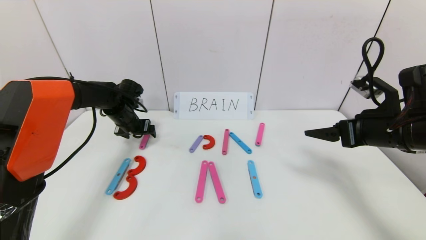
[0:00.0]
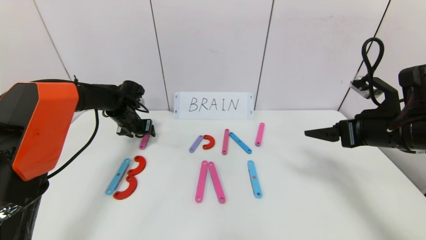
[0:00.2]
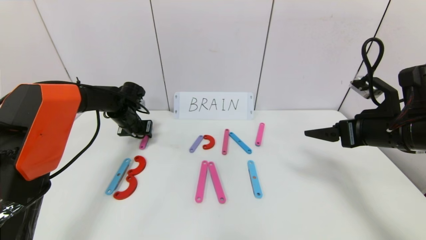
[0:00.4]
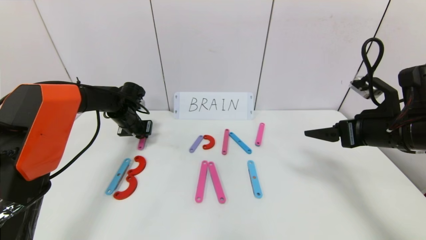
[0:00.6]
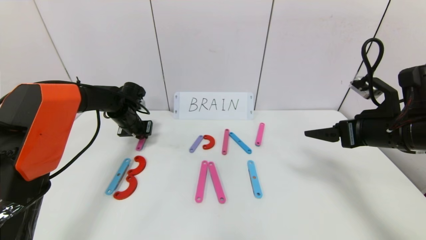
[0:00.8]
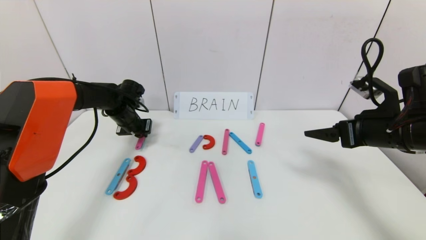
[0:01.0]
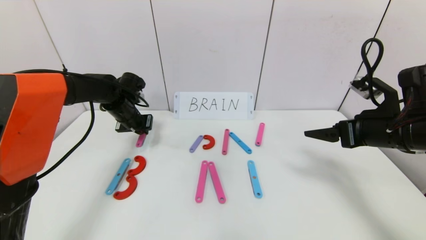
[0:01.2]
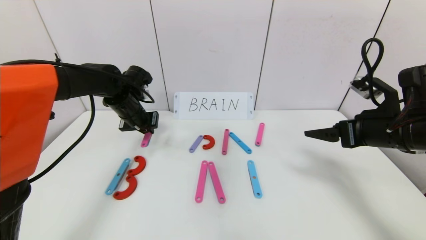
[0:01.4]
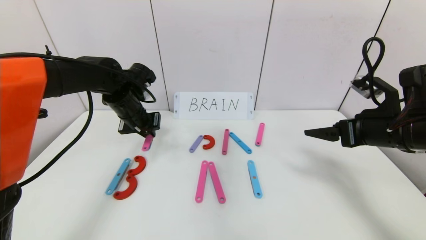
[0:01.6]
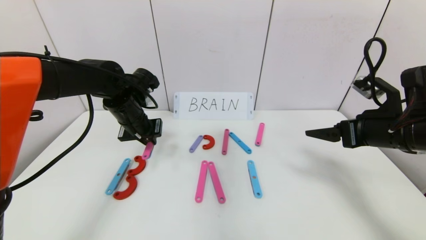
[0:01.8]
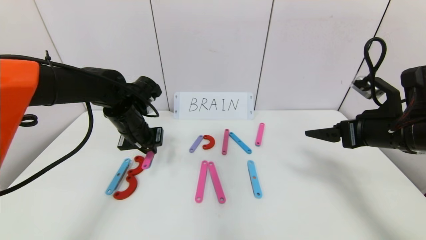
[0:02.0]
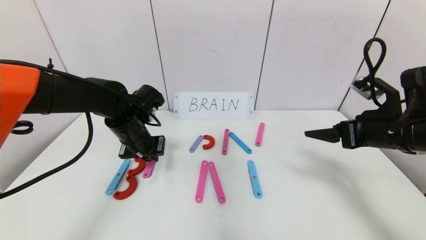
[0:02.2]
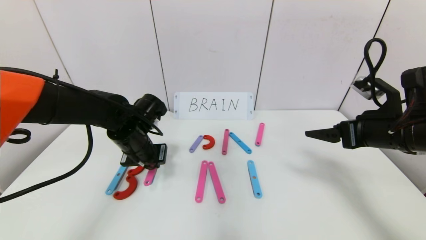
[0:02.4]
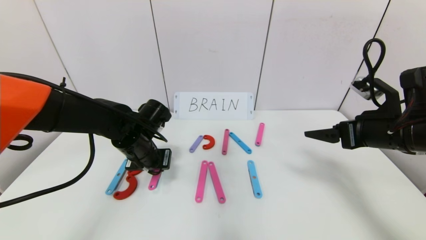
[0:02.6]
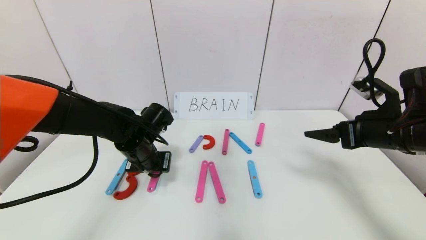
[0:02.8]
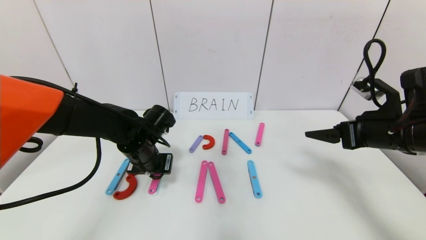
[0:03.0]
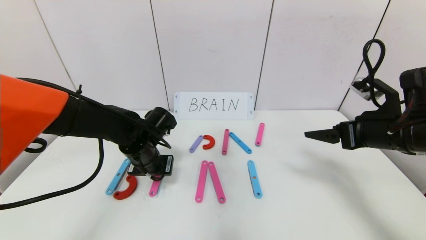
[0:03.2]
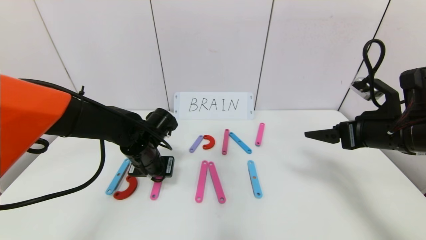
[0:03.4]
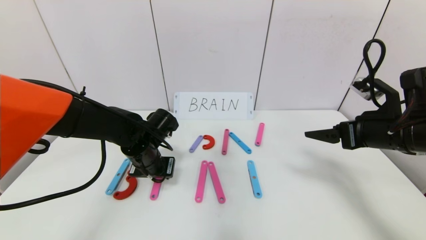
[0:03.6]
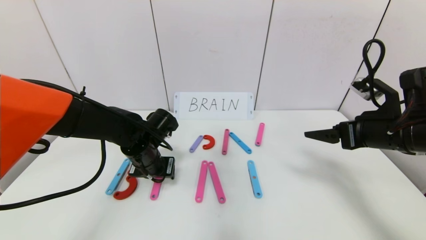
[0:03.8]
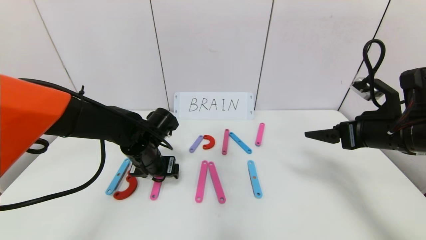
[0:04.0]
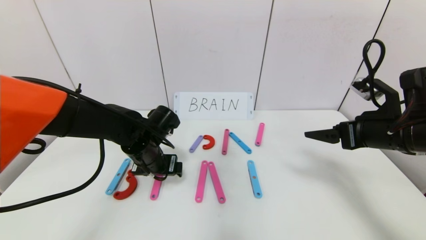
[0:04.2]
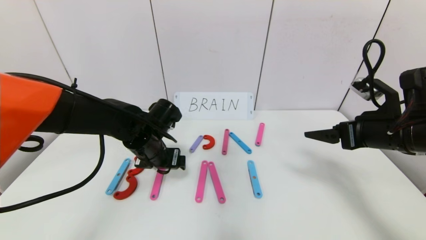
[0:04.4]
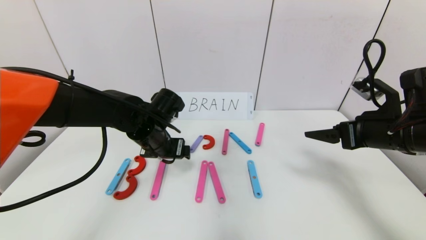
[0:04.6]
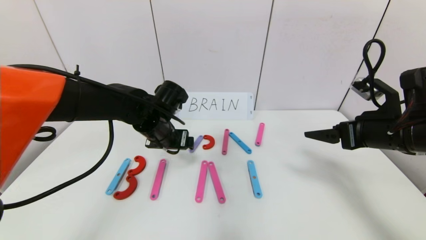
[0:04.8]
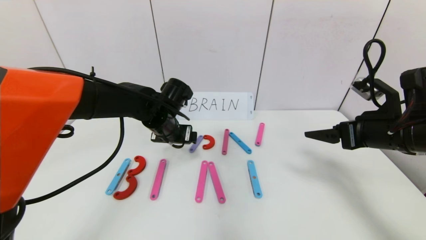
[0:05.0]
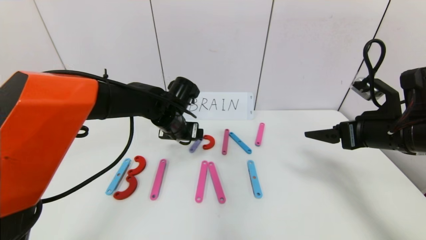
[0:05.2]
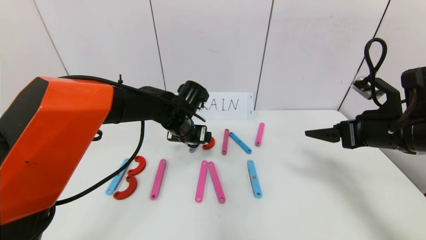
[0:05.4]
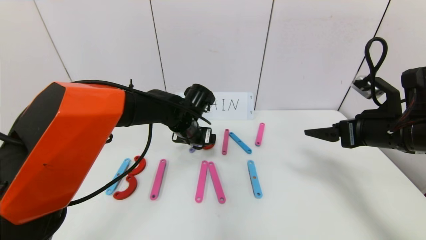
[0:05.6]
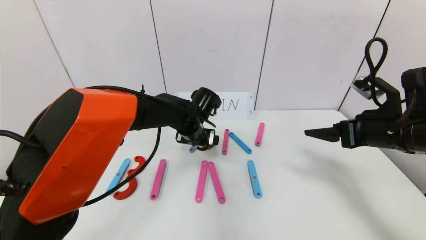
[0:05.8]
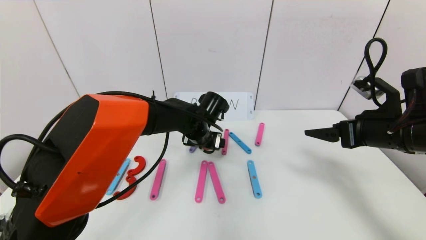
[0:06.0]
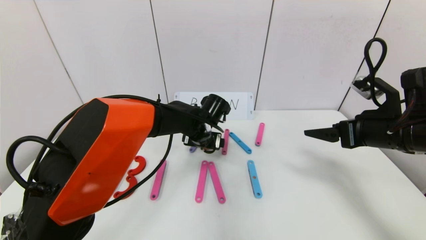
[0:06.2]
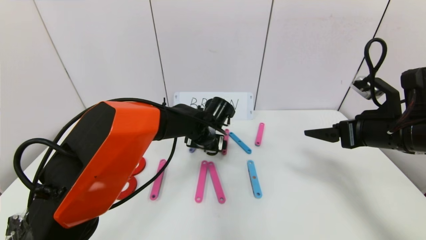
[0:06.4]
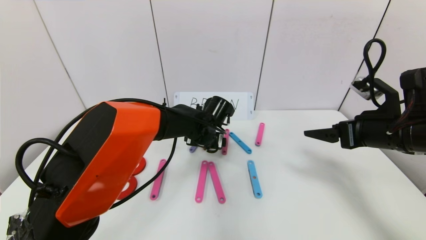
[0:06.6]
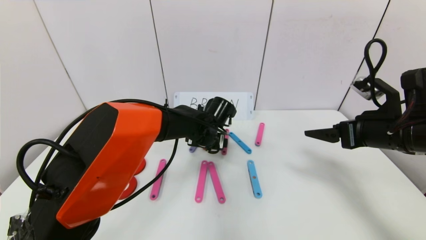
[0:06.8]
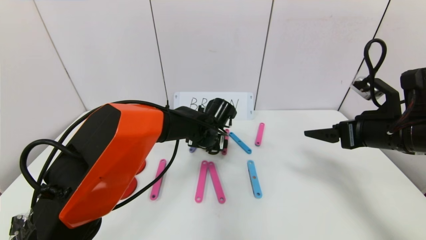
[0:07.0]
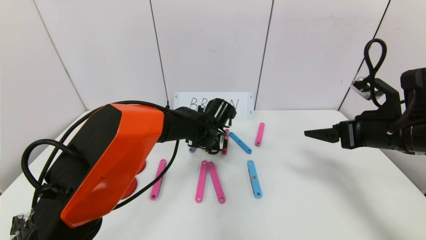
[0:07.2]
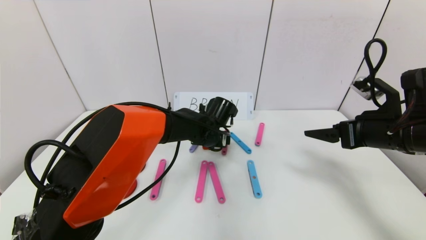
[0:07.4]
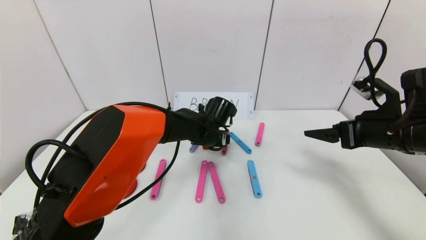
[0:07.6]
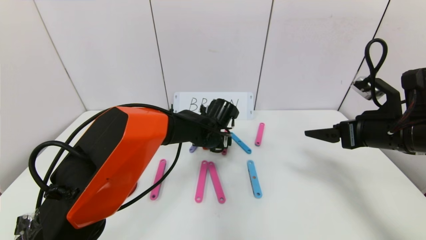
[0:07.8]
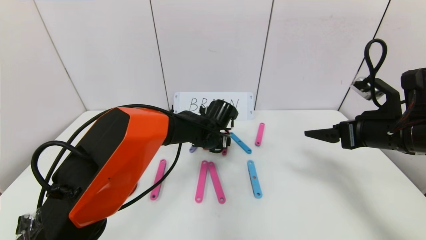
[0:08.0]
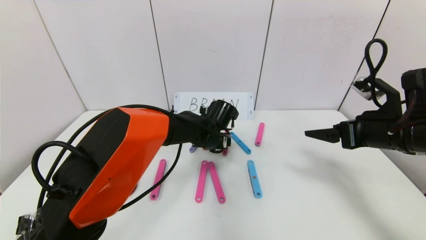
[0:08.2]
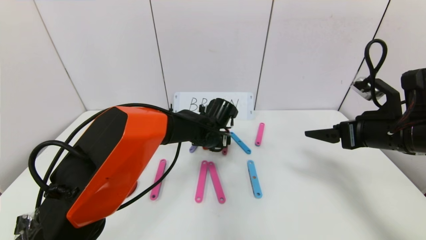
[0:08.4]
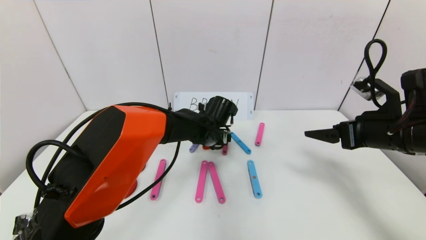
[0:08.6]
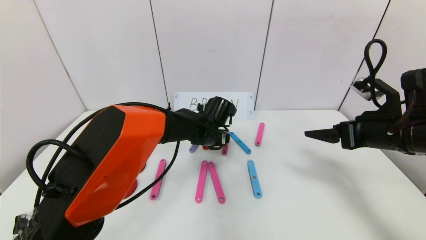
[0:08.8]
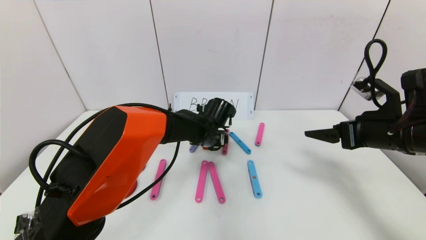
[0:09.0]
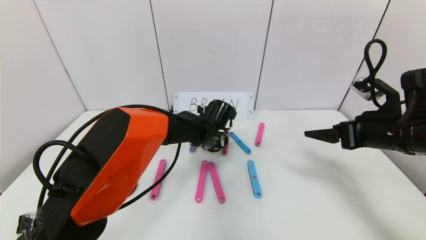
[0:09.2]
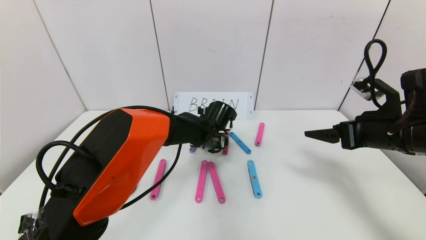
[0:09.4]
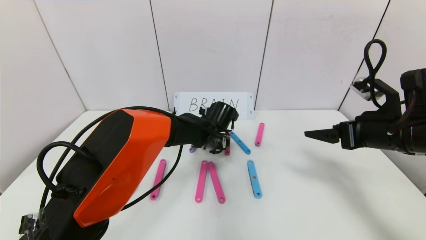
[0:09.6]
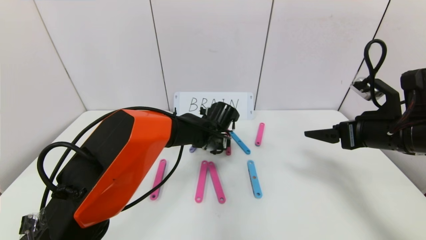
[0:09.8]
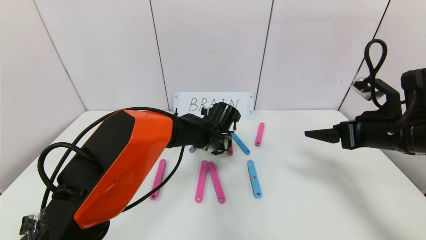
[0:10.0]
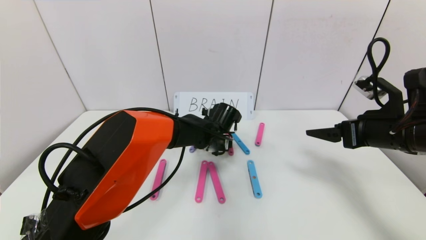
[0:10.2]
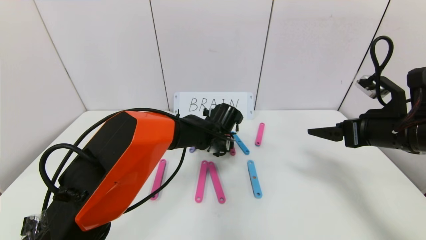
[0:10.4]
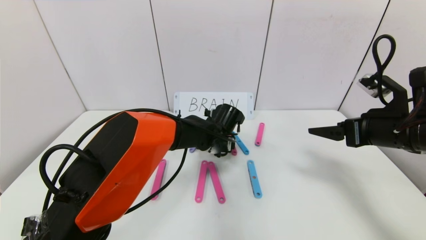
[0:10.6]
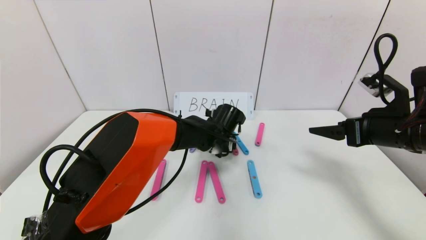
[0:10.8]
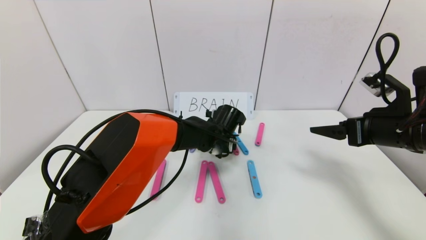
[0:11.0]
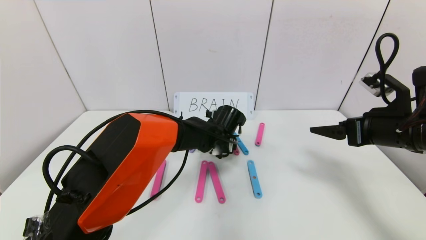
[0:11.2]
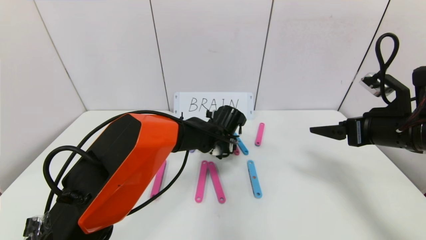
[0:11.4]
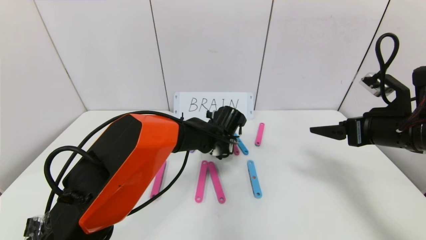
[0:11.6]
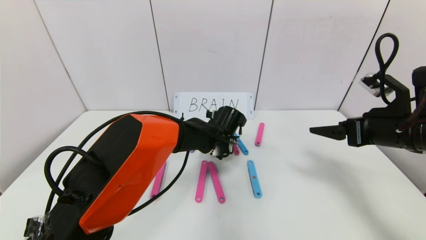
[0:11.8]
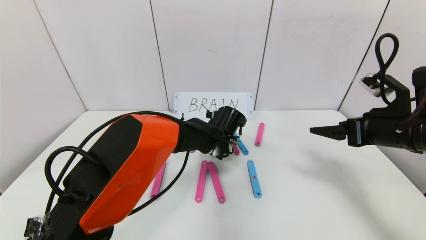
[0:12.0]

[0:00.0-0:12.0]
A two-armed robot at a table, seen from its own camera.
Task of the whole recording: rearrange the word baai as brain.
0.0 to 1.6 s: The left gripper is displaced backward, upward and to the right by some 10 cm, and closes up.
1.6 to 3.0 s: The left gripper heads downward and backward, covering roughly 10 cm.
3.0 to 4.4 s: The left gripper opens.
4.4 to 6.0 s: The left gripper is displaced to the right and forward by approximately 10 cm.
6.0 to 7.6 s: The grippers make only small movements.
7.6 to 9.0 s: Neither gripper changes place.
9.0 to 10.4 s: The grippers make only small movements.
10.4 to 12.0 s: The left gripper closes up.

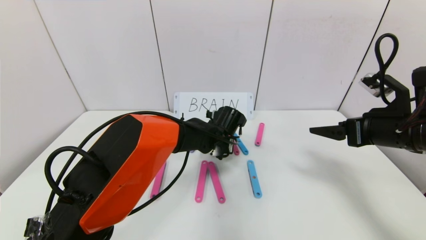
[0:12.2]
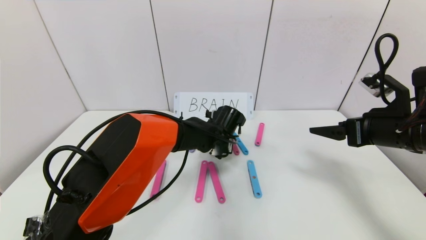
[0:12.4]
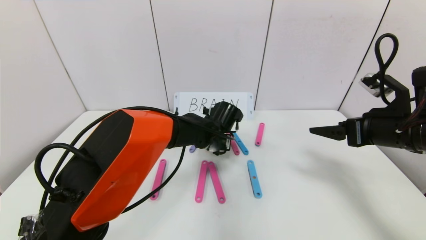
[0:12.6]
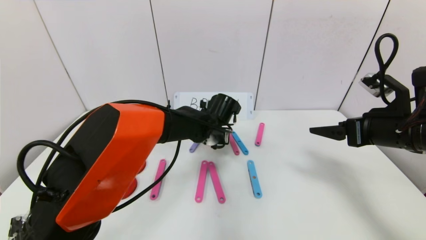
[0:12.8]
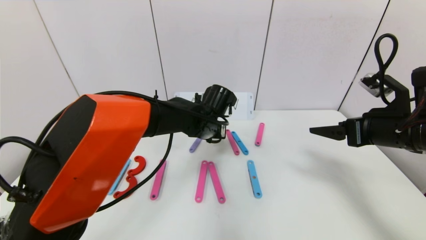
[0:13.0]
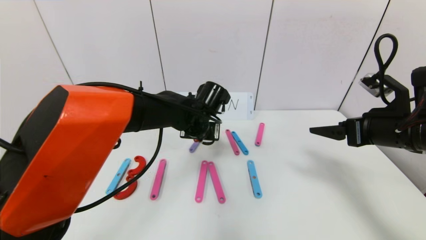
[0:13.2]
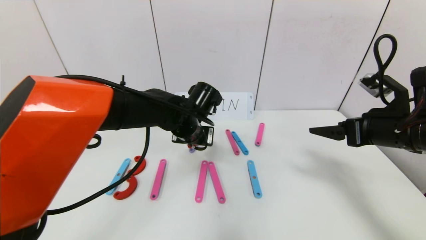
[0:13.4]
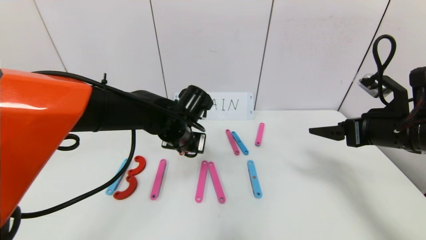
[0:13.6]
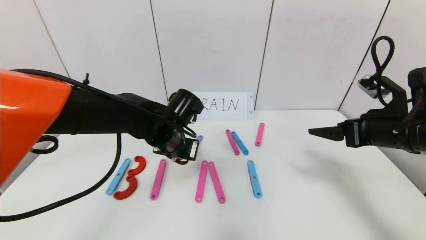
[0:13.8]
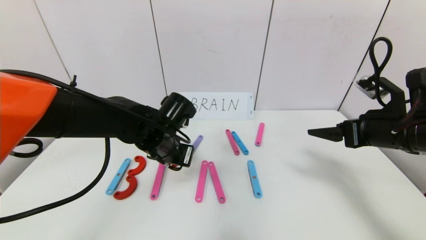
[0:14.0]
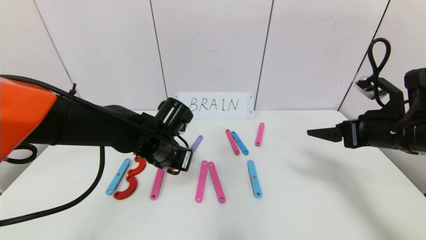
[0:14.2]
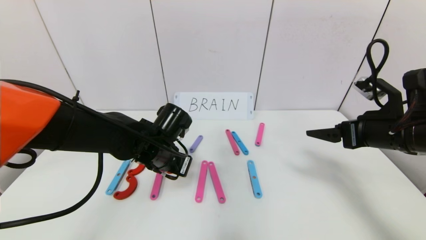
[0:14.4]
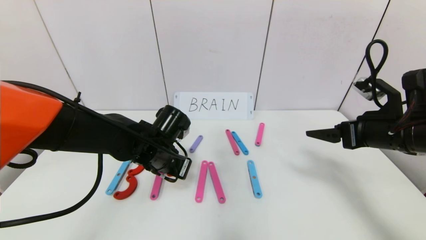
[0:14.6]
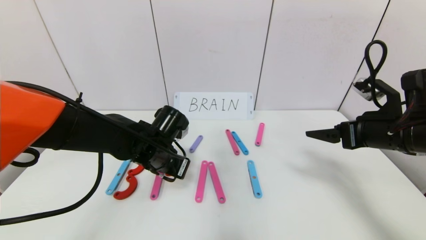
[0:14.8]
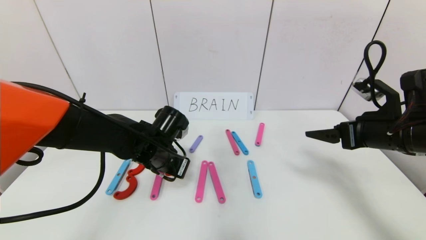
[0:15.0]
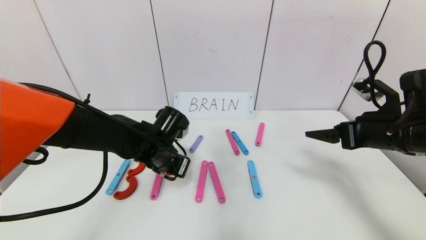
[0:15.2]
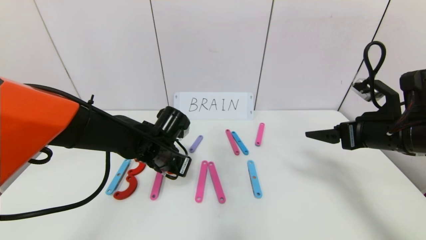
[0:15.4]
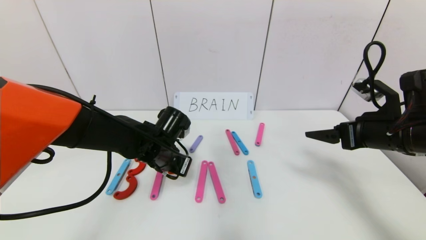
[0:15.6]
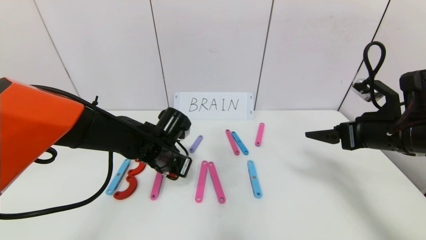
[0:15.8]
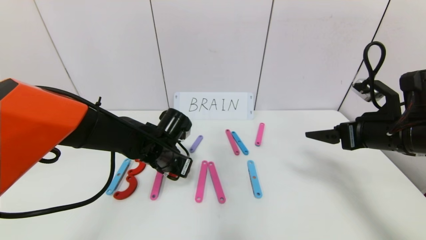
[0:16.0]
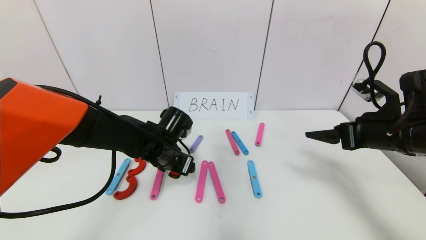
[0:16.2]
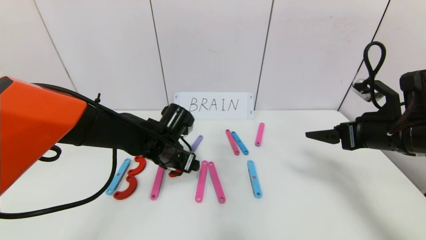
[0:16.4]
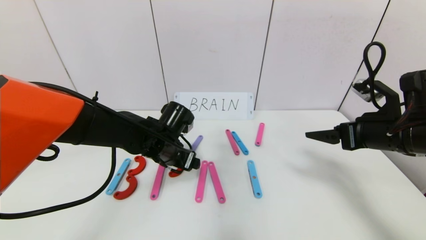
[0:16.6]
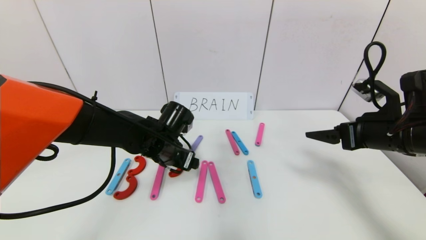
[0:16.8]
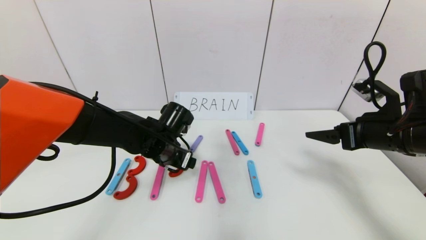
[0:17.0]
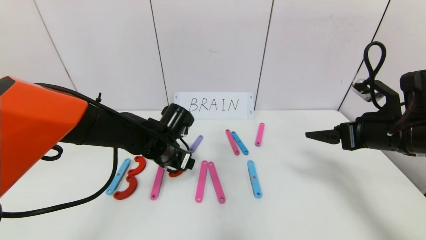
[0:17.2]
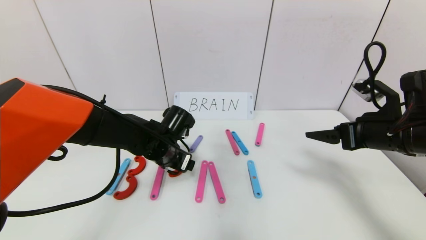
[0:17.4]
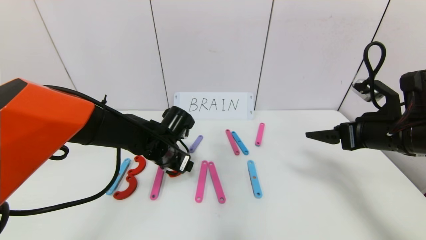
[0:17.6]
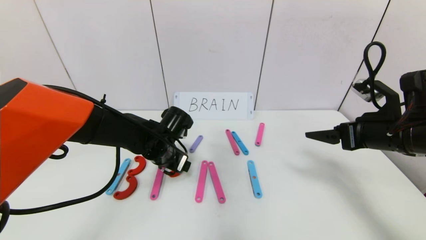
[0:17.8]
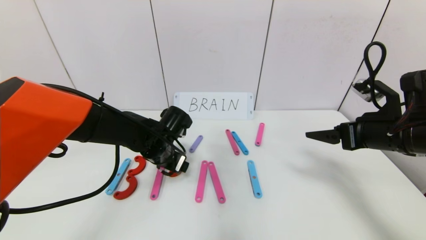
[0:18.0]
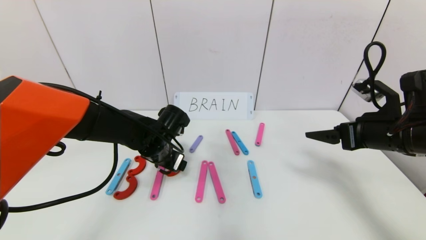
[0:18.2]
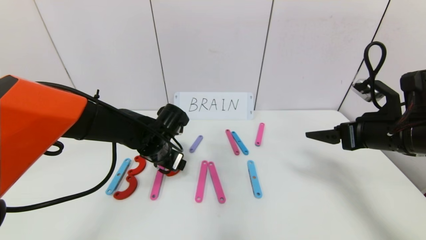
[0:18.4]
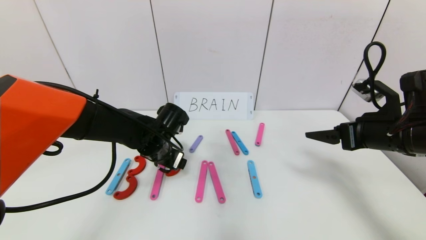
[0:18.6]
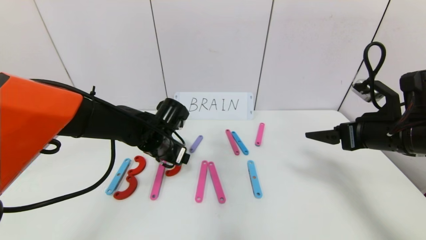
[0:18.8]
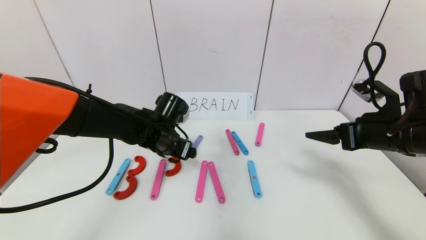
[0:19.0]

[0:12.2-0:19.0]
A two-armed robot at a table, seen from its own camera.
Task of the whole recording: rearrange the word baai as brain.
12.2 to 13.6 s: The left gripper travels to the left, upward and backward by roughly 15 cm.
13.6 to 15.0 s: The left gripper changes place by approximately 5 cm.
15.0 to 16.2 s: The left gripper opens up.
16.2 to 19.0 s: The grippers stay close to where they were, moving slightly.
